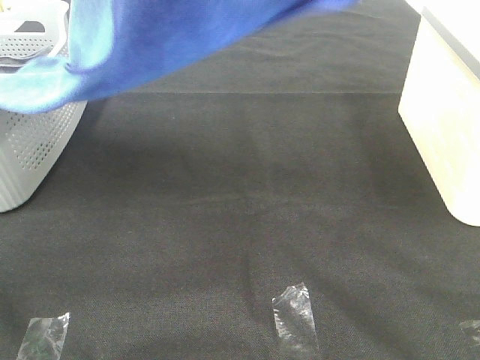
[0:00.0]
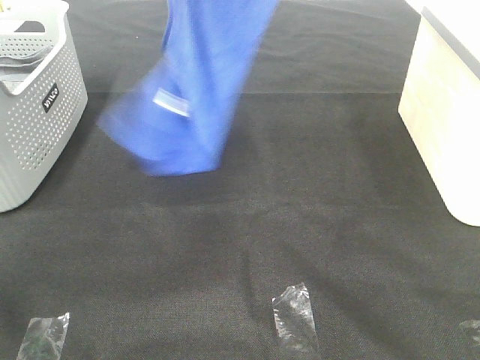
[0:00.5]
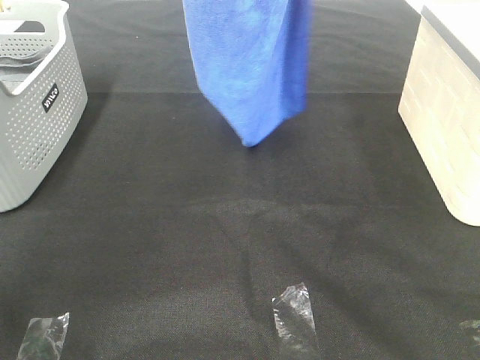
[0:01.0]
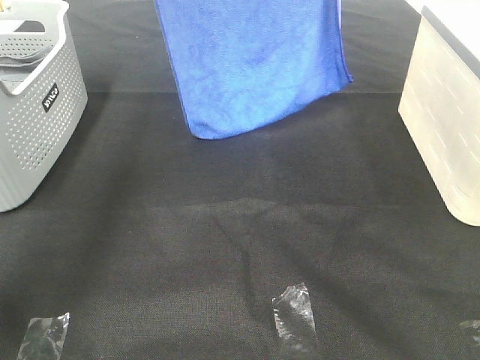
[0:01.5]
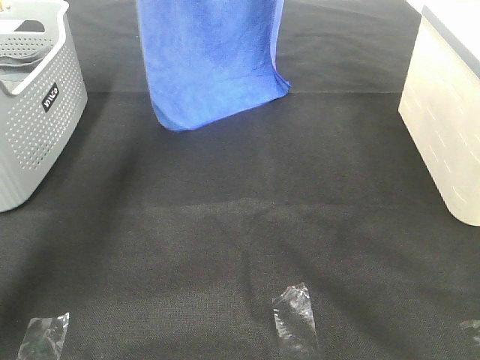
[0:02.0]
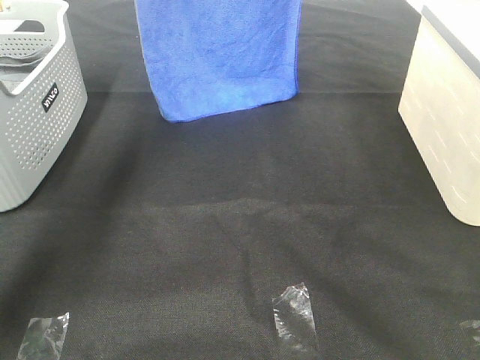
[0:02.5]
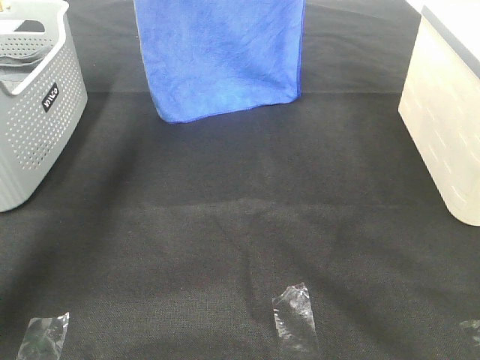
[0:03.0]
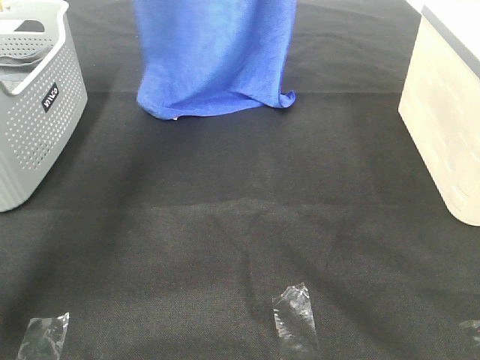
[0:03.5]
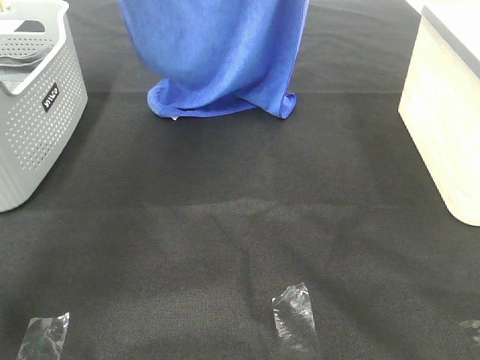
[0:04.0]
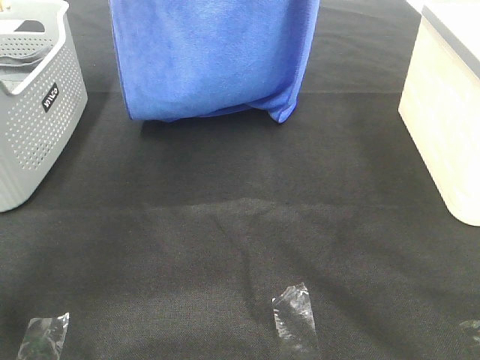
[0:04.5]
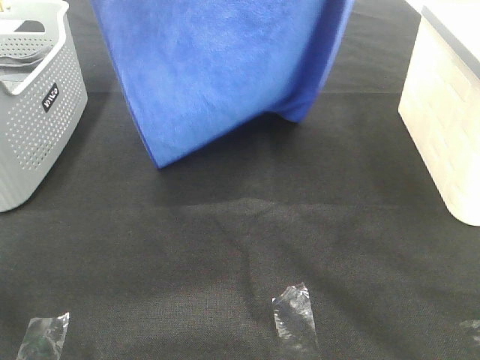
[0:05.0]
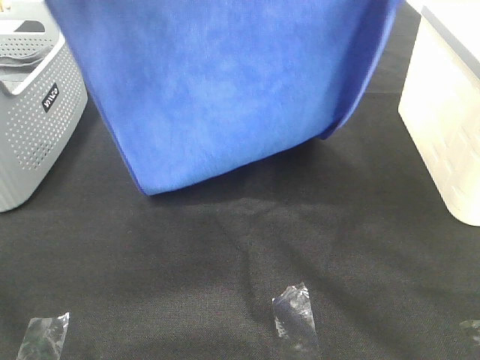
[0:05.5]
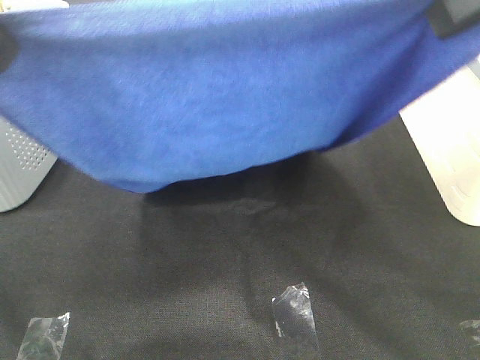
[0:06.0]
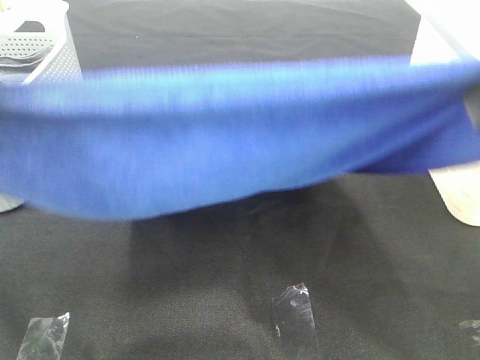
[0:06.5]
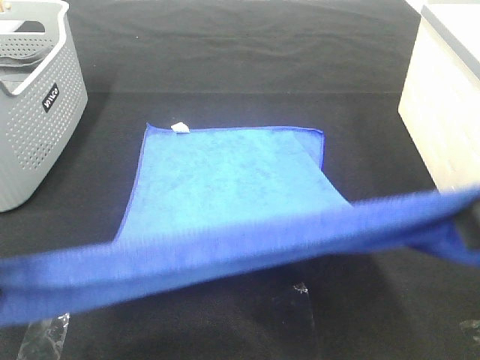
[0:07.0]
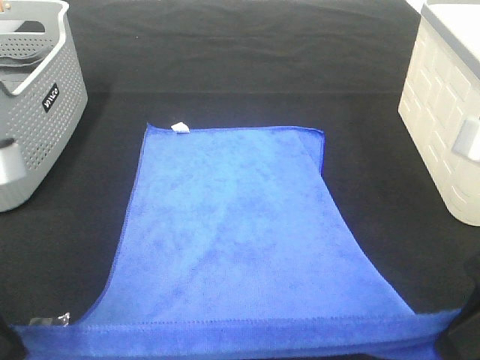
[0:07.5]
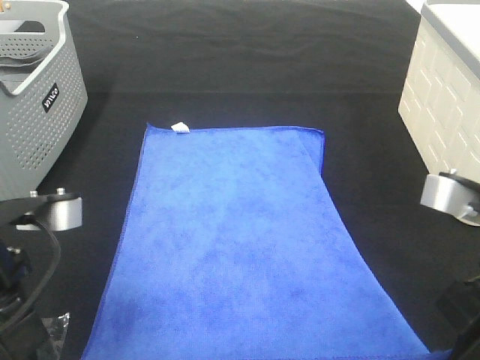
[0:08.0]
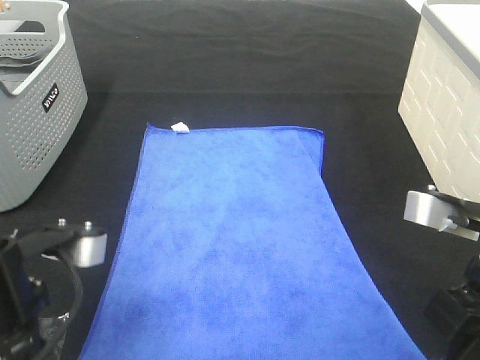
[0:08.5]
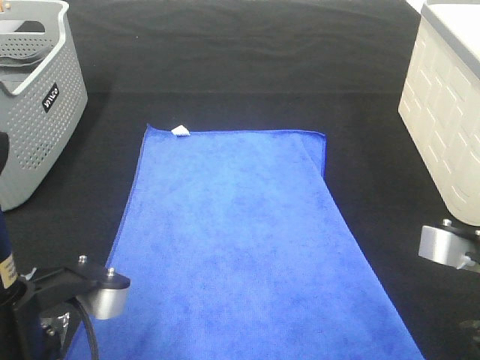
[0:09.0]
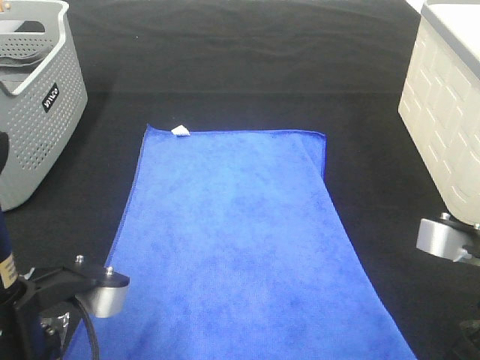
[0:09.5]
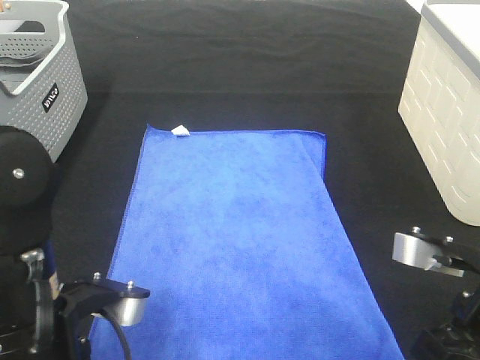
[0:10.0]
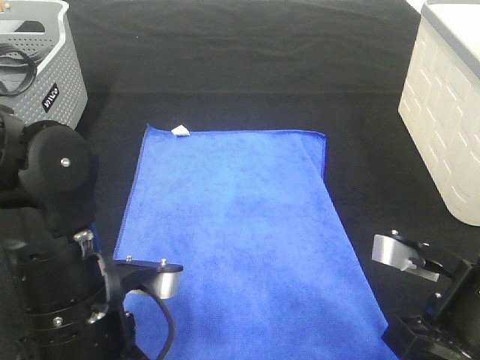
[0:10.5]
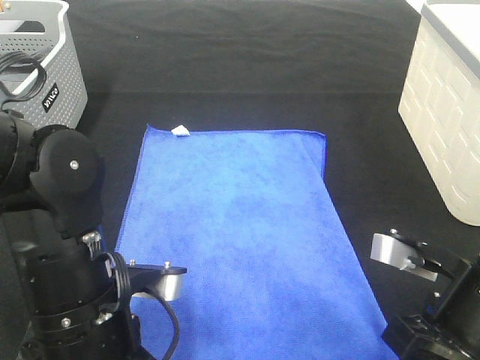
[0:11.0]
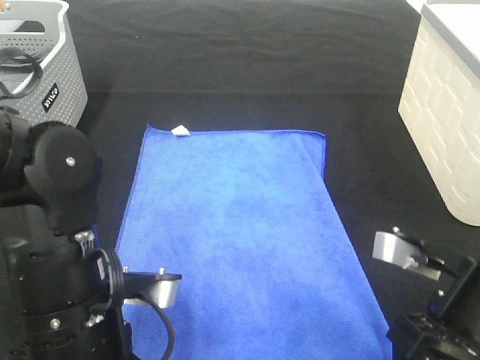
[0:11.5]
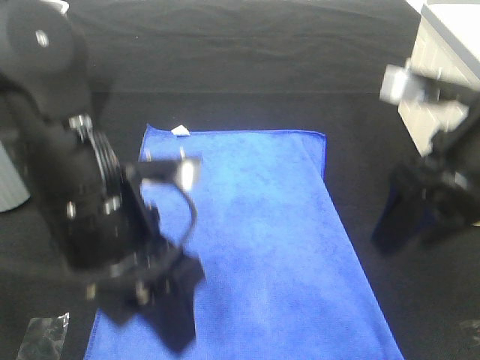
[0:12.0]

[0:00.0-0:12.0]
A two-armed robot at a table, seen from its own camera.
Task of the whole recording: Remove the towel and place it.
Step, 0:00.0 to 0:06.5: Left hand: spread the blue towel flat on the table.
Step, 0:00.0 to 0:06.5: Right hand: spread the blue towel flat on the table.
0:00.0 to 0:02.0: The grippers both shift forward by about 20 cm.
0:02.0 to 0:04.0: The two grippers go approximately 10 cm backward.
0:04.0 to 0:06.0: Both grippers move backward, approximately 25 cm.
0:06.0 to 0:08.0: Both grippers move downward, some 20 cm.
0:08.0 to 0:10.0: The right gripper moves downward, roughly 5 cm. The left gripper heads to the right, covering about 5 cm.
0:10.0 to 0:12.0: The right gripper shifts some 10 cm upward and forward, and opens up. The left gripper heads forward and upward, covering about 10 cm, and opens its fingers.

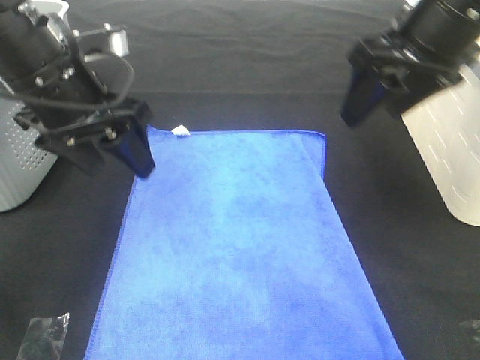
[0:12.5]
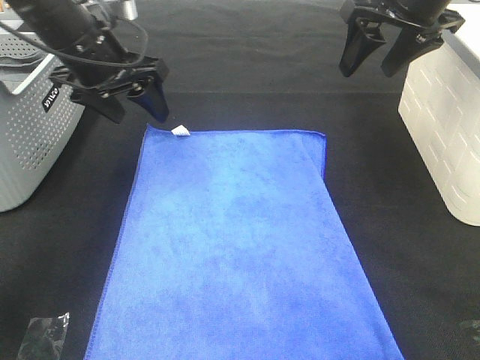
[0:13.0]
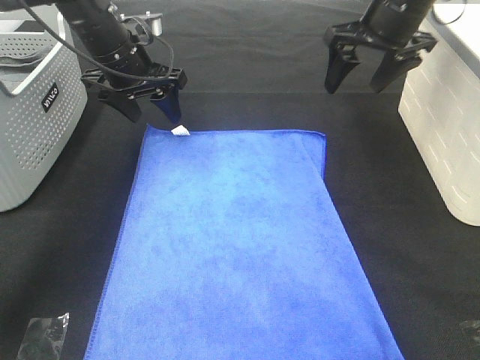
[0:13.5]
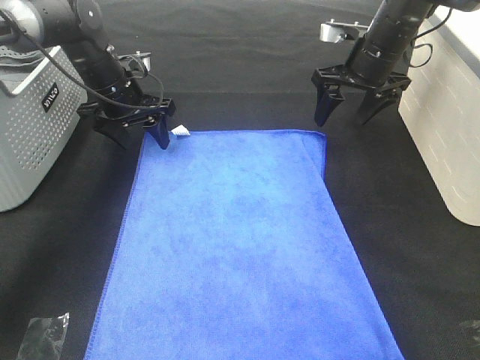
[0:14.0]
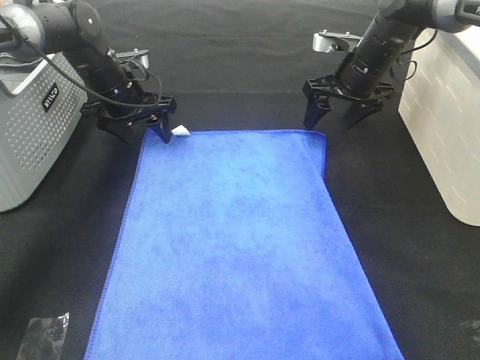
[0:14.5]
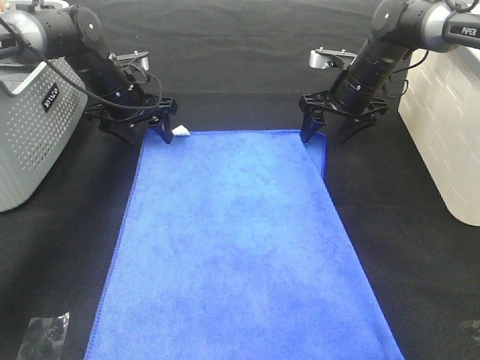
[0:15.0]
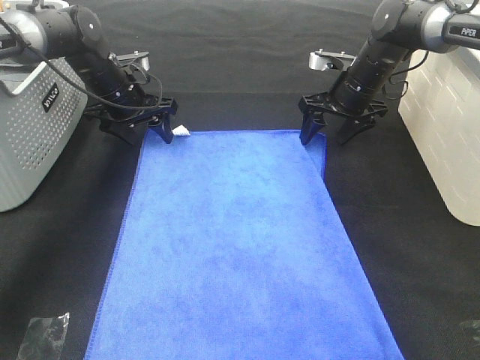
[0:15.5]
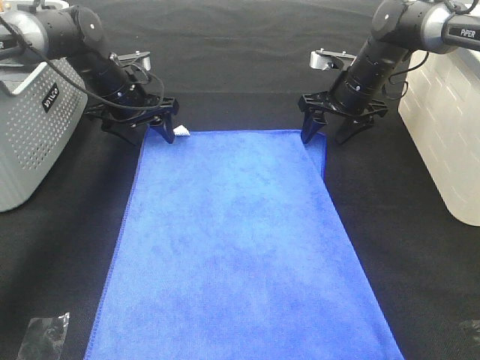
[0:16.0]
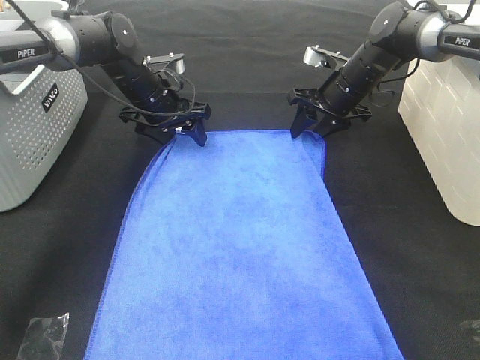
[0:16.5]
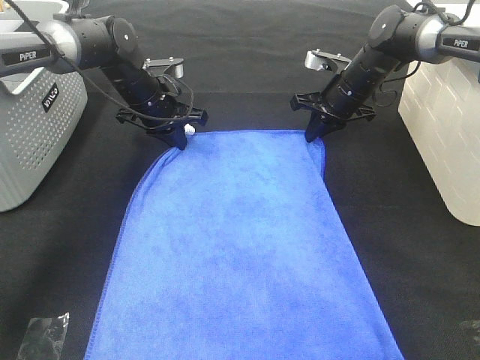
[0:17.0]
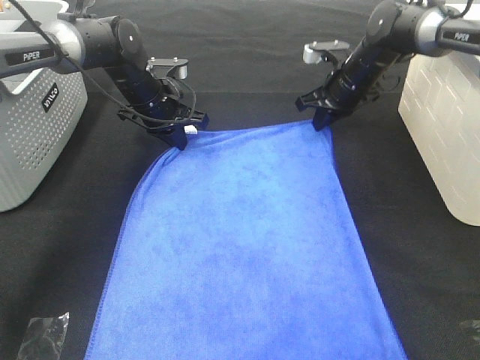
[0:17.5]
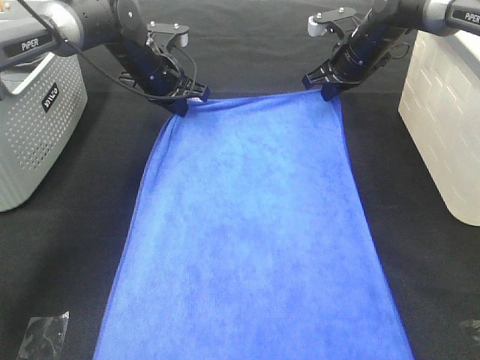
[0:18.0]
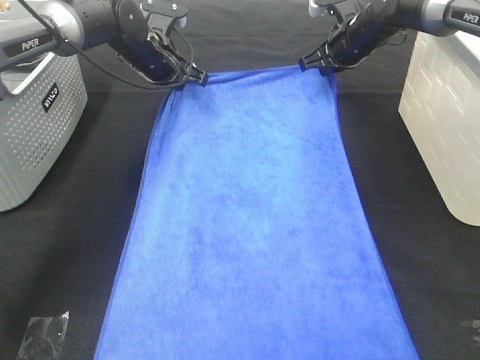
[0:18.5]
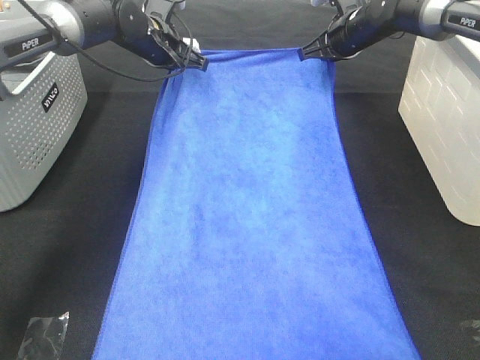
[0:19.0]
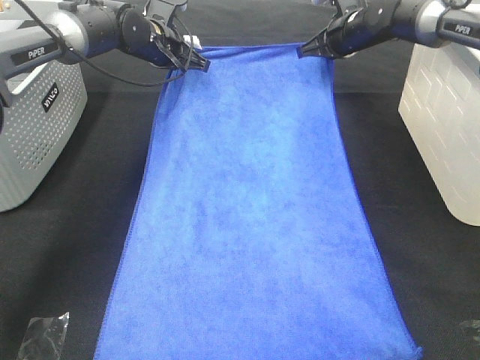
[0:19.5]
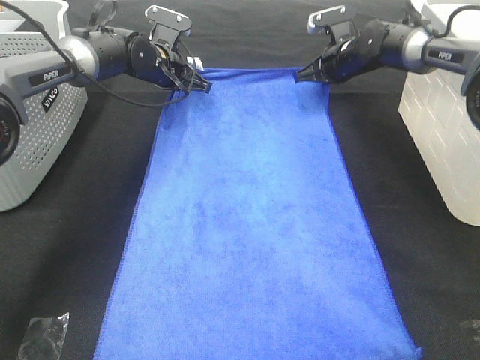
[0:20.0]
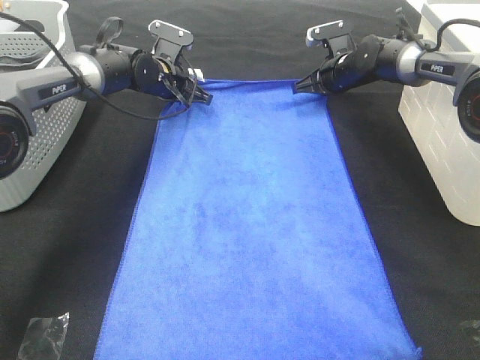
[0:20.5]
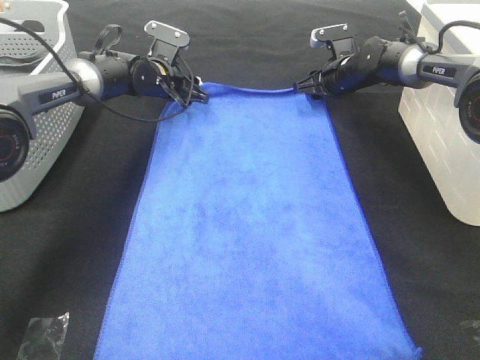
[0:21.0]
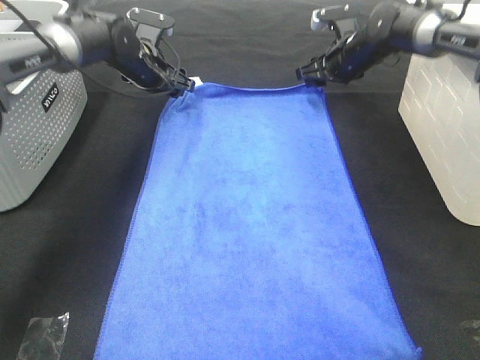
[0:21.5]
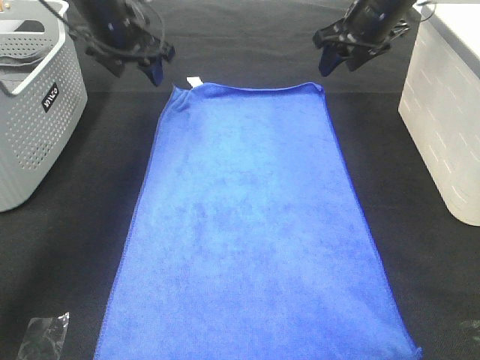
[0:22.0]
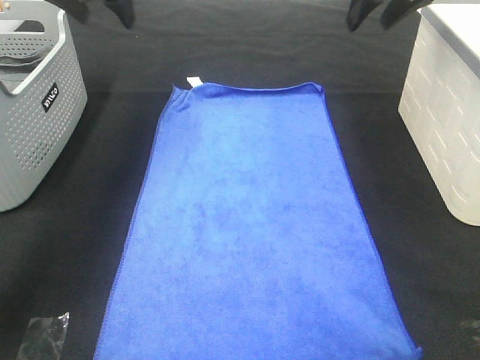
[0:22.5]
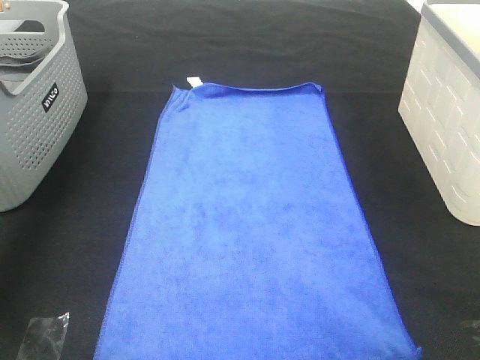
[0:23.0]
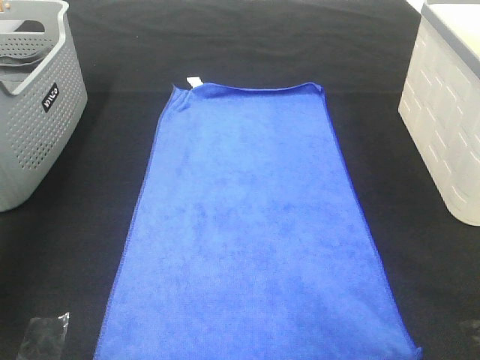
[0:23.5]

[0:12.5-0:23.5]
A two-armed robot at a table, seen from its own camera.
Task of the whole recording: Remove the towel and place it.
Step, 0:12.5 to 0:14.5: Left hand:adjust the blue towel.
Step, 0:12.5 to 0:14.5: Right hand:adjust the blue towel.
0:12.5 to 0:14.5: The two grippers go approximately 25 cm forward and downward.
0:14.5 to 0:16.0: There are only small adjustments of the grippers.
0:16.0 to 0:18.0: The right gripper shifts by roughly 5 cm, and closes up; the left gripper ends up about 5 cm from where it was, and closes its fingers.
0:18.0 to 0:20.0: The right gripper ends up some 5 cm from where it was.
0:20.0 to 0:21.5: The right gripper opens its fingers; the left gripper opens up.
0:21.5 to 0:23.5: The left gripper heads upward, backward and to the left, covering approximately 40 cm. The right gripper travels upward and backward by about 40 cm.

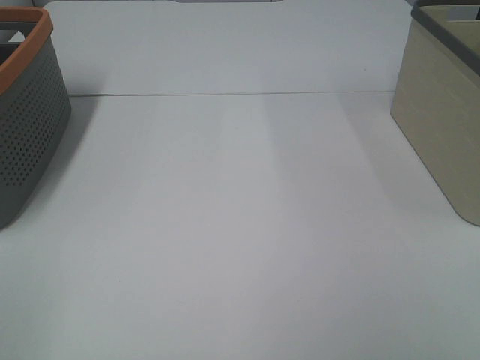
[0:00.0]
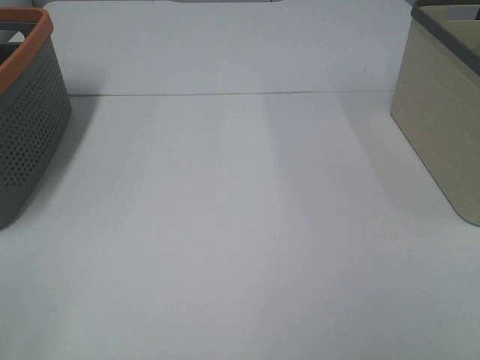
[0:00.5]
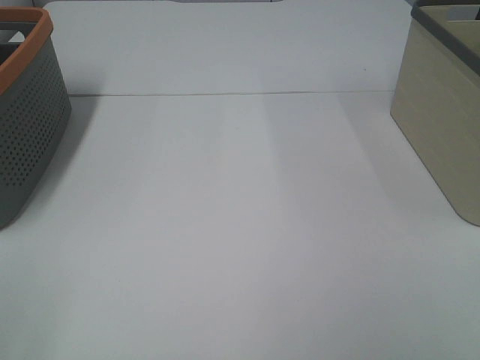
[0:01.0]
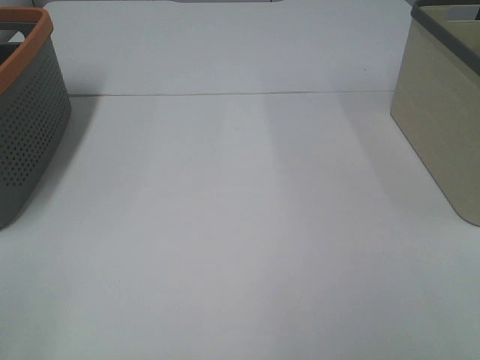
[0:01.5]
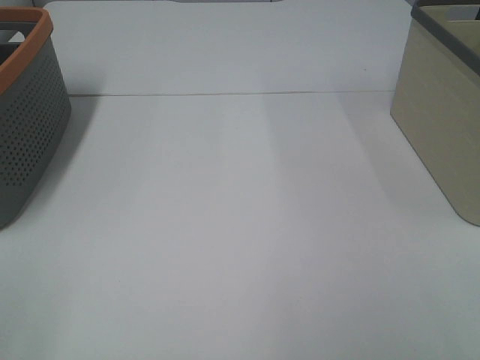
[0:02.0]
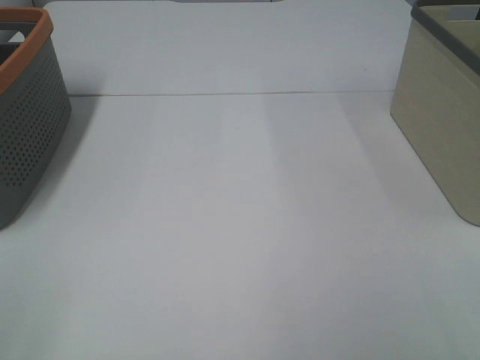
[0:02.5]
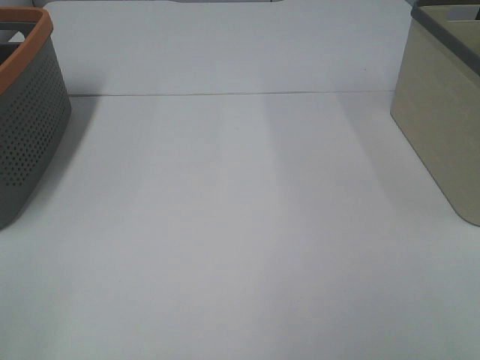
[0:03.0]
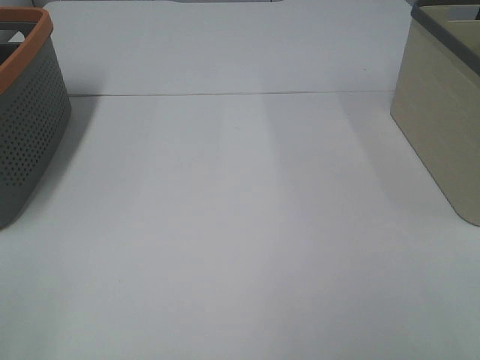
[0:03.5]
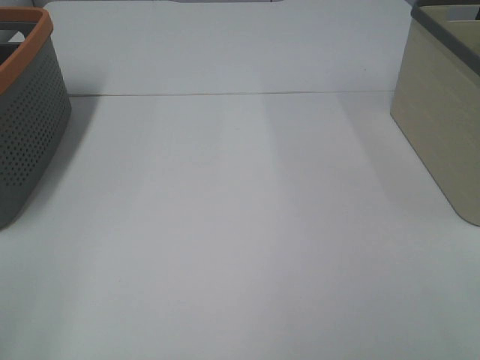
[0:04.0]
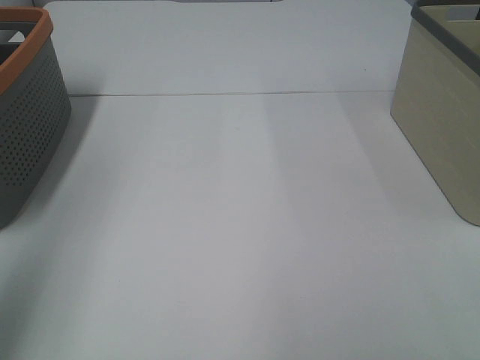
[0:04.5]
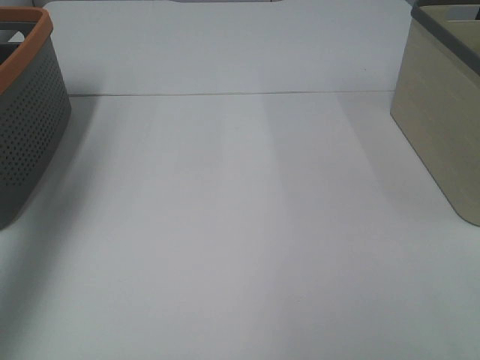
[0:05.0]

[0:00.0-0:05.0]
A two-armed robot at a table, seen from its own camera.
Task of the whole recording: Remove the towel and place it.
0:00.0 to 0:02.5: Both grippers stay put.
0:02.5 to 0:05.0: The left gripper travels forward and upward by about 35 cm.
